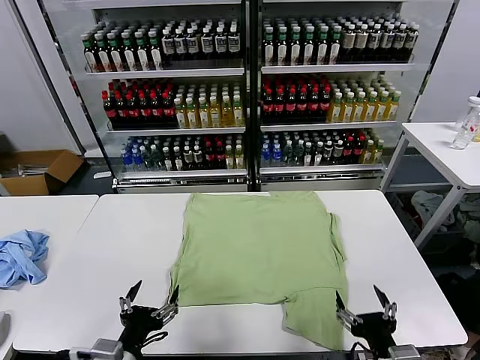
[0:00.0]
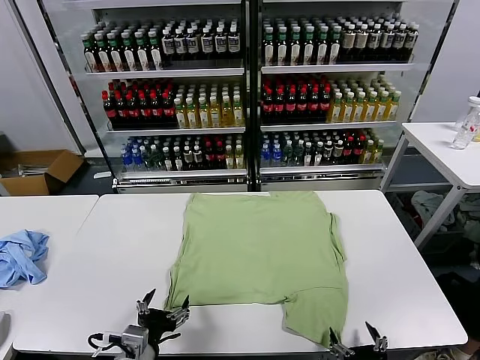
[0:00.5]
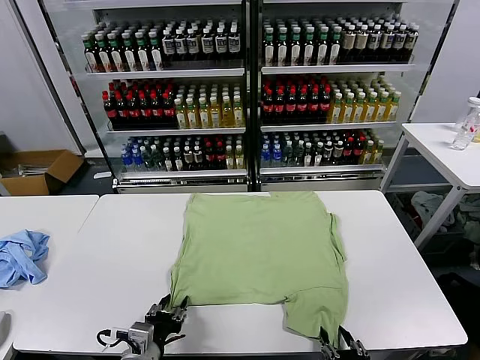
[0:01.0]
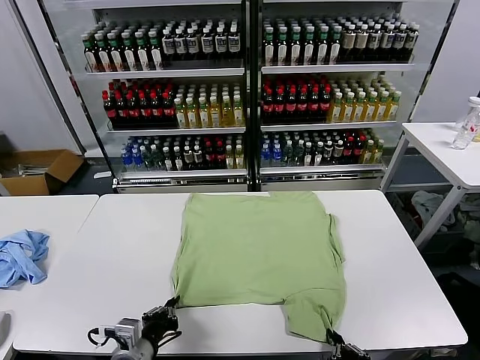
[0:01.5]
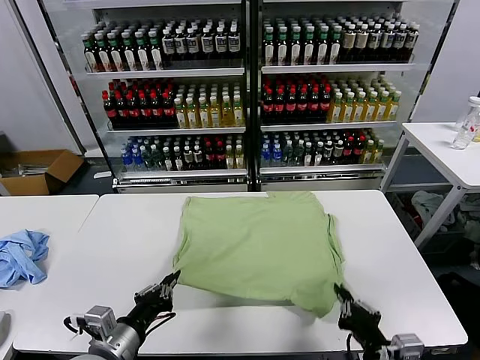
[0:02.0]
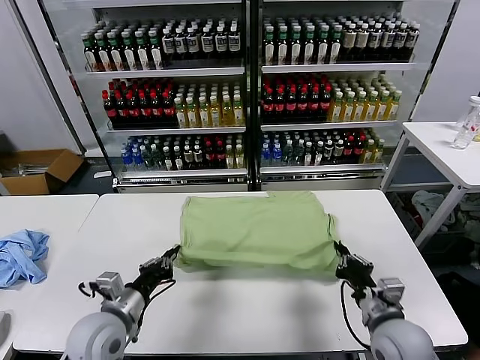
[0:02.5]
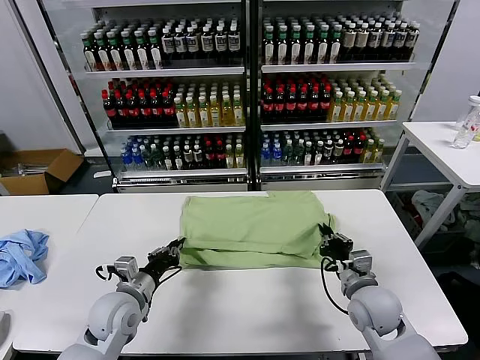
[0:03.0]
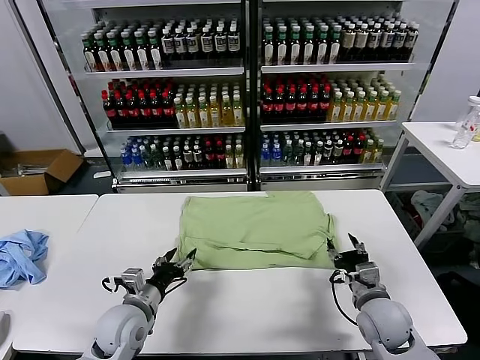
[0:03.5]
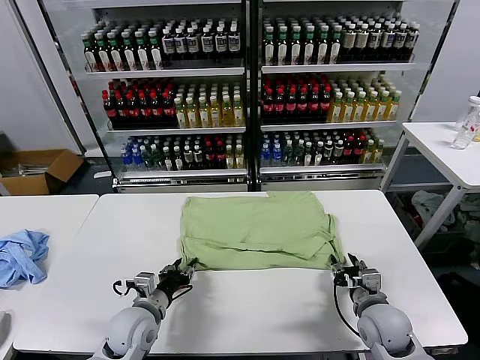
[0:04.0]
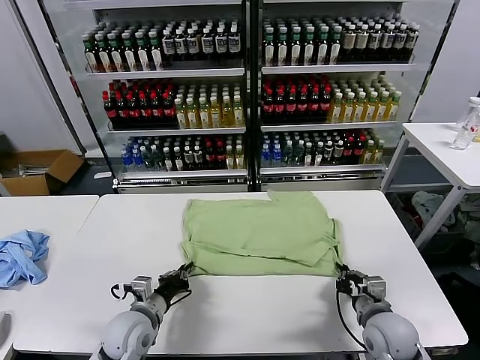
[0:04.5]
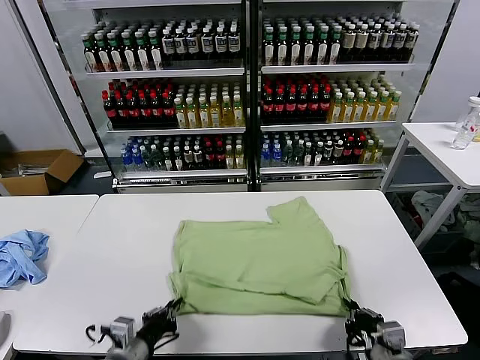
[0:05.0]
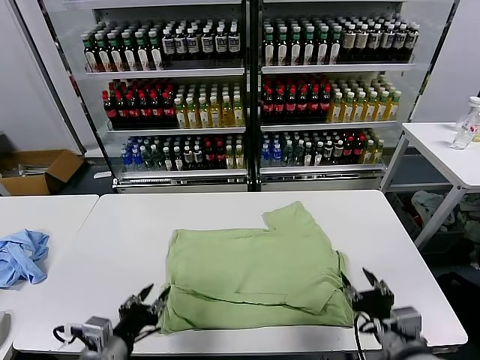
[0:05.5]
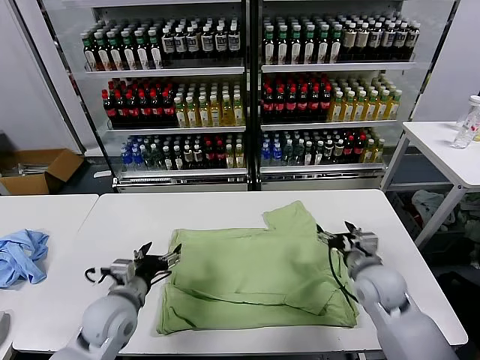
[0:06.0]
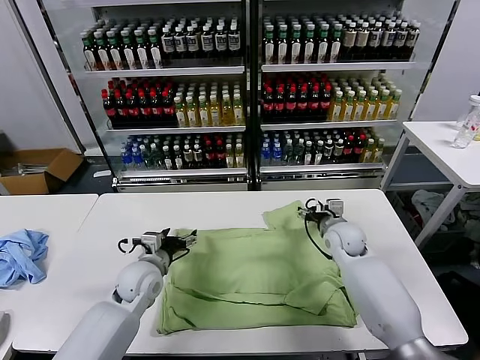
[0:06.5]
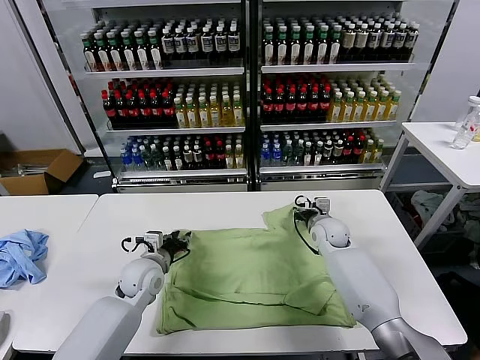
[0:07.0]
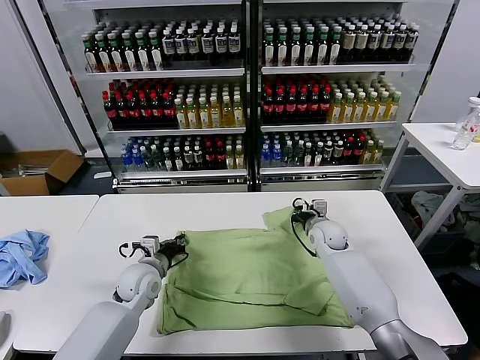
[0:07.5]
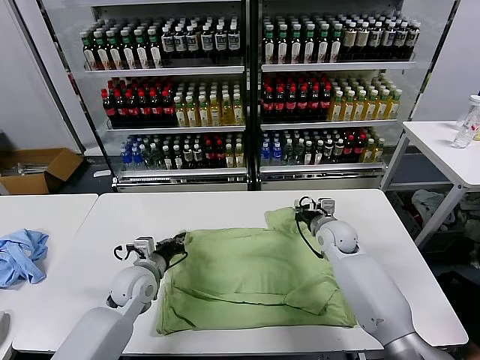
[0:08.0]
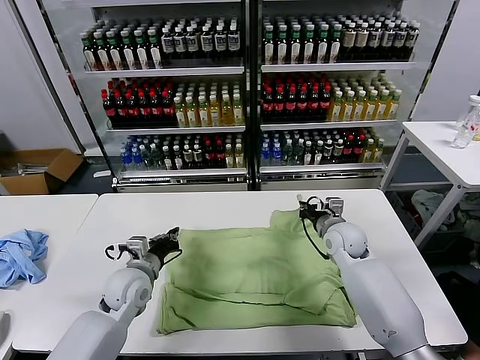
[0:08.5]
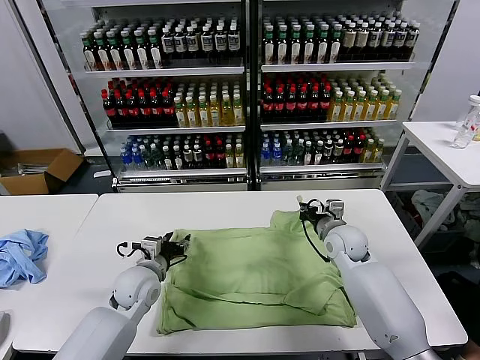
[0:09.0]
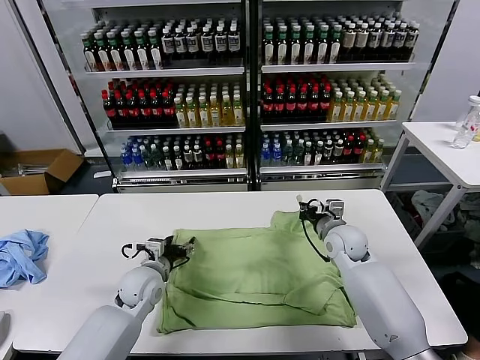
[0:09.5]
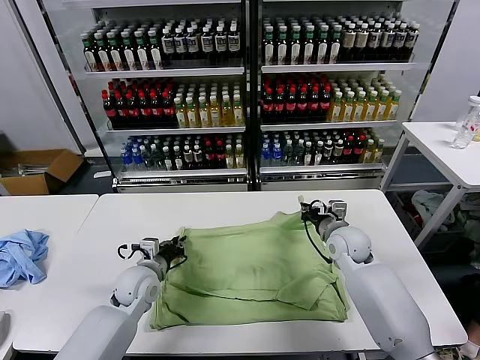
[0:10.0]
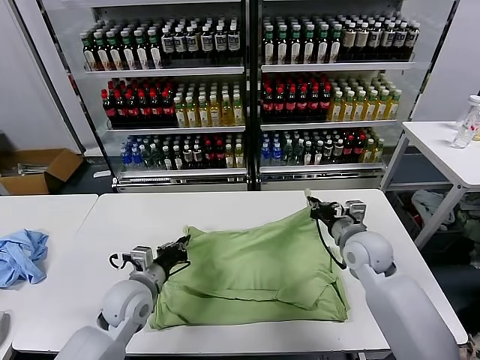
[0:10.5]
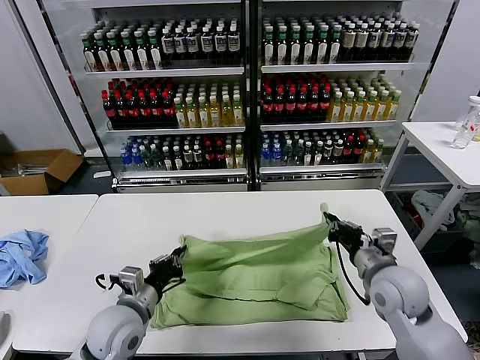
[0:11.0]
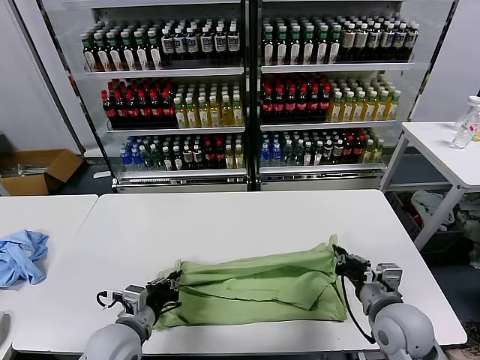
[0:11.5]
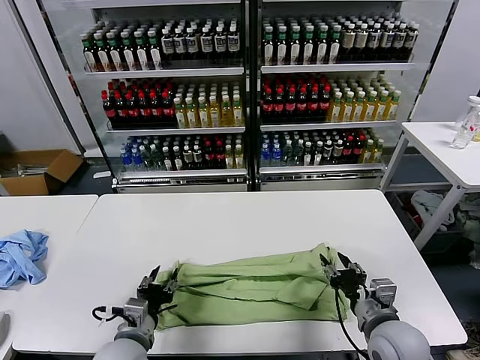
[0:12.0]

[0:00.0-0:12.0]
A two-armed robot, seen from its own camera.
Task of the whole recording: fold and organize the clothes.
Step, 0:00.0 to 0:01.0: use both grippers simultaneously to clamp the lower edge of the clothing fabric.
Step, 0:02.0 to 0:03.0: use both grippers to drag the lower edge of the fabric forward and fold it over the upper edge.
Step, 0:03.5 to 0:05.0: Drag the clothes downward with both gripper.
Step, 0:05.5 to 0:10.0: use both grippers simultaneously to clamp the upper edge of the clothing fabric.
Step, 0:10.5 to 0:11.5: use both grippers to drag the upper edge of the fabric backward and fold it over the lower edge.
0:02.0 to 0:04.0: Both grippers move forward and downward, roughly 15 cm. The left gripper opens, then closes again. Meanwhile the right gripper opens and closes again.
0:04.0 to 0:06.0: The right gripper moves forward and upward, approximately 15 cm, and opens up. The left gripper travels upward by approximately 5 cm, travels backward and back again, roughly 15 cm each way, and opens its fingers.
0:06.0 to 0:08.0: Both grippers move forward, roughly 10 cm. The right gripper closes its fingers. The left gripper closes.
0:08.0 to 0:10.0: The left gripper opens, then closes again.
0:10.0 to 0:12.0: The two grippers go some 20 cm backward. The right gripper opens its fingers. The left gripper opens up.

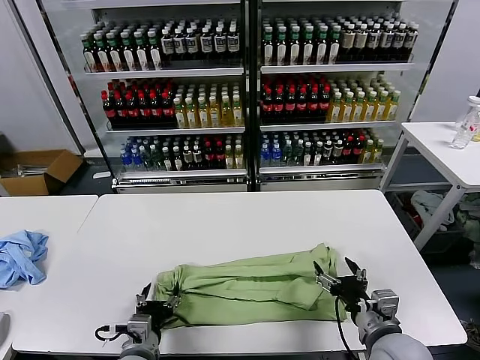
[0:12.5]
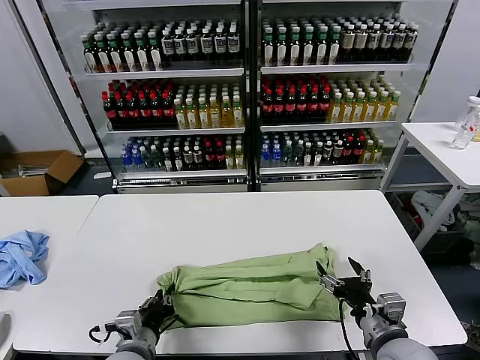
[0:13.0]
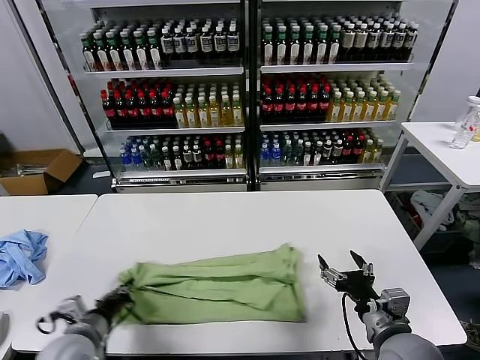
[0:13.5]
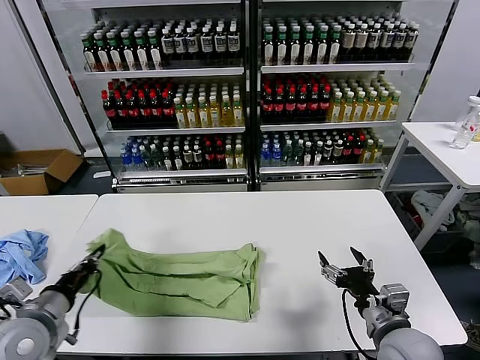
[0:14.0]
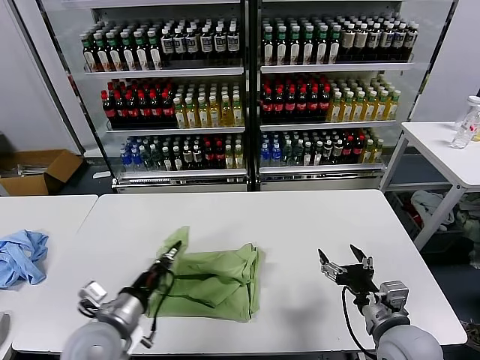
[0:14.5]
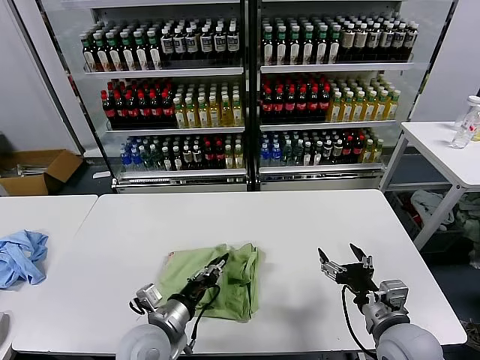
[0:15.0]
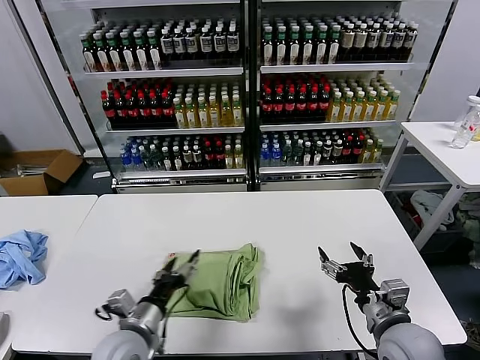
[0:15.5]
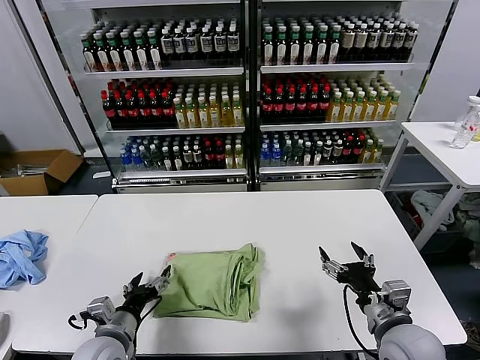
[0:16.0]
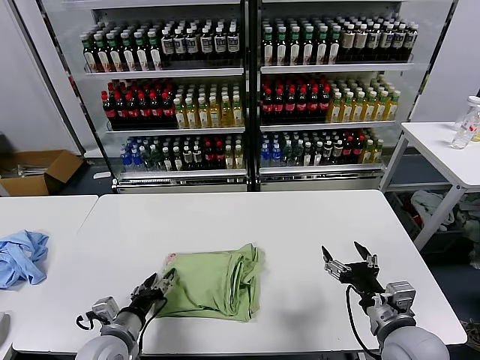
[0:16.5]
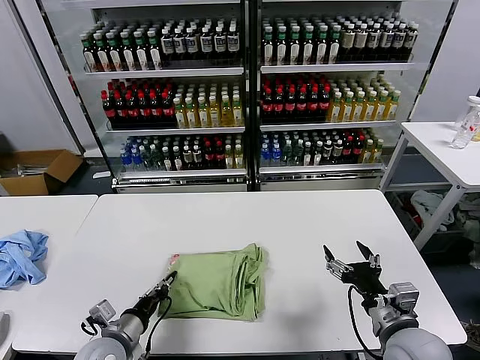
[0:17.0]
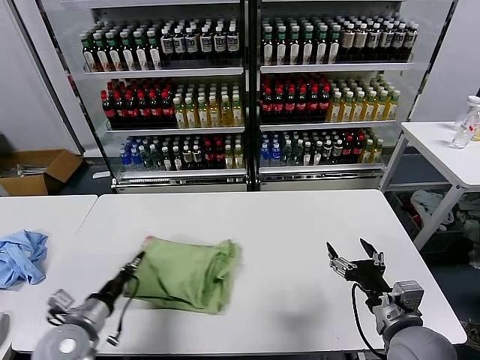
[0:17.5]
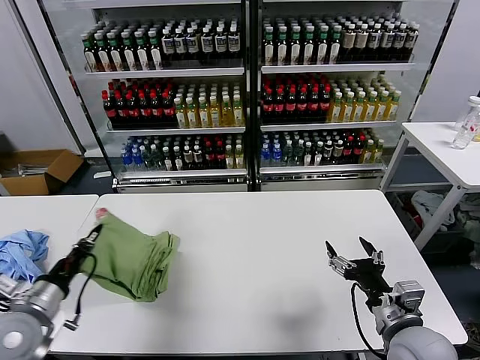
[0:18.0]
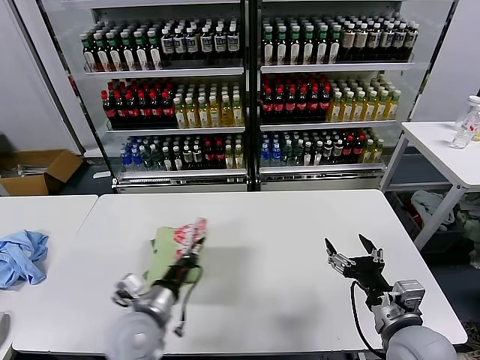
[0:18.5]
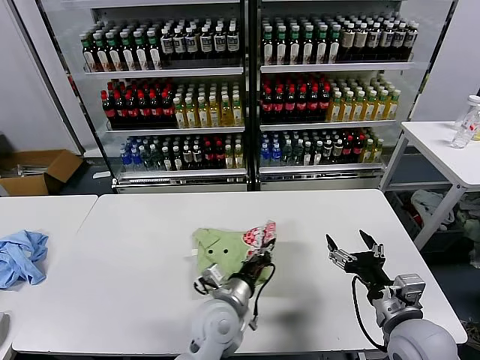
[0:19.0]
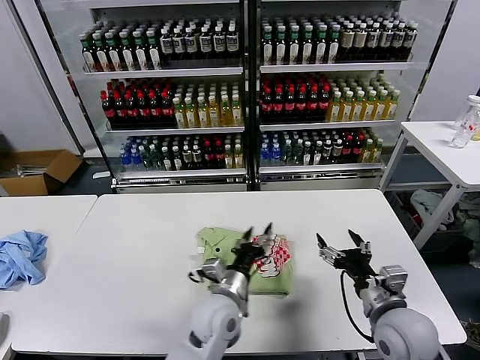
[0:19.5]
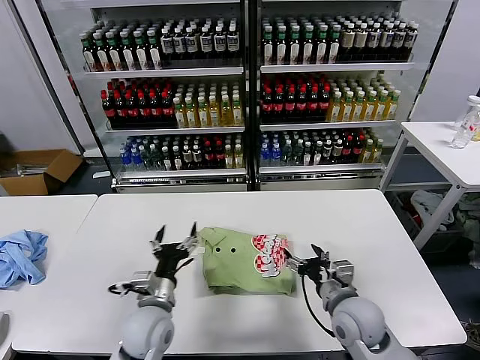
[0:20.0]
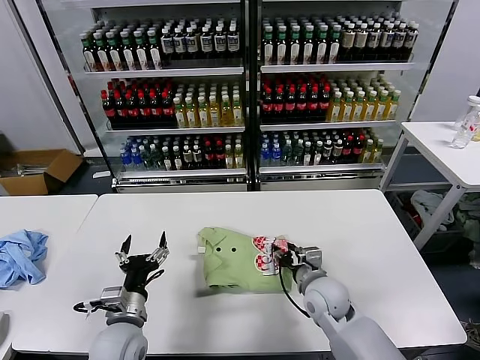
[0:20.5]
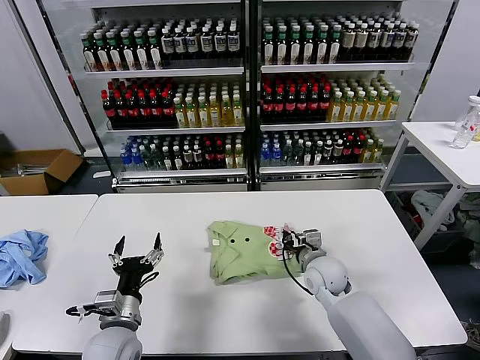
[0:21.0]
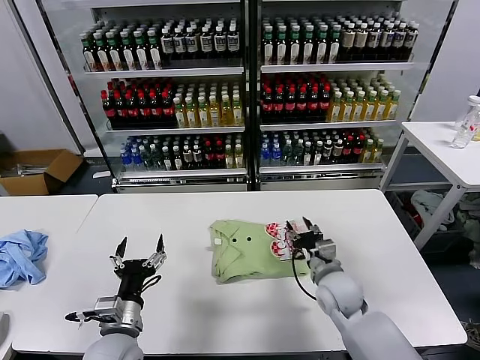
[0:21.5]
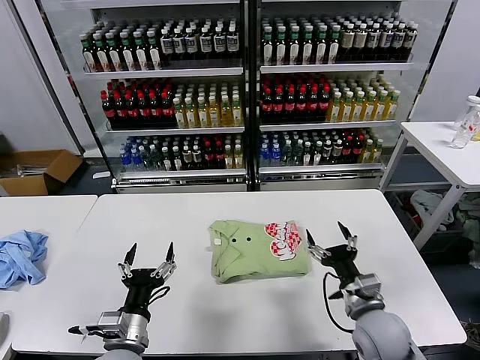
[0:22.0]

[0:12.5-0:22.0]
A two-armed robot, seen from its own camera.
Task of the whole recording: fold and organize the clothes.
Step, 0:13.5 to 0:15.0: use the left gripper to drag the left edge of the fabric to the left and folds it over the right edge.
Step, 0:15.5 to 0:19.0: Flip the folded clothes over with left gripper.
Step, 0:19.5 to 0:21.5: Drag the clothes to the center of the table.
0:12.5 to 0:14.5: The left gripper moves upward, about 10 cm, goes to the left and returns, some 20 cm each way, and closes up.
0:14.5 to 0:16.5: The left gripper moves downward, some 10 cm, and opens.
0:16.5 to 0:18.0: The left gripper moves to the left and upward, some 15 cm, and closes.
0:18.0 to 0:20.0: The right gripper heads forward, to the left and downward, covering about 10 cm; the left gripper shifts roughly 25 cm to the right, and opens up.
0:20.0 to 0:22.0: The left gripper heads backward, covering approximately 10 cm. Meanwhile the right gripper goes forward and returns, approximately 10 cm each way, and closes, then reopens.
